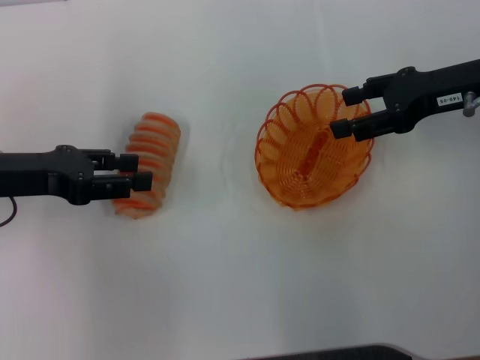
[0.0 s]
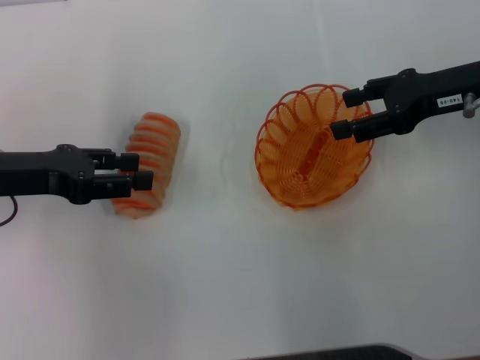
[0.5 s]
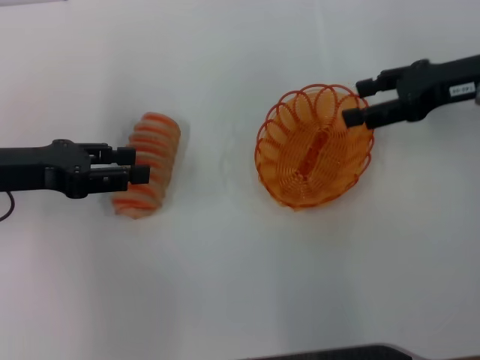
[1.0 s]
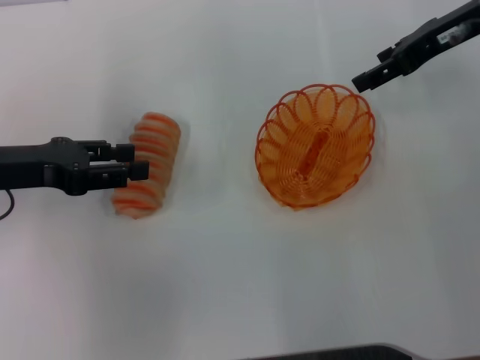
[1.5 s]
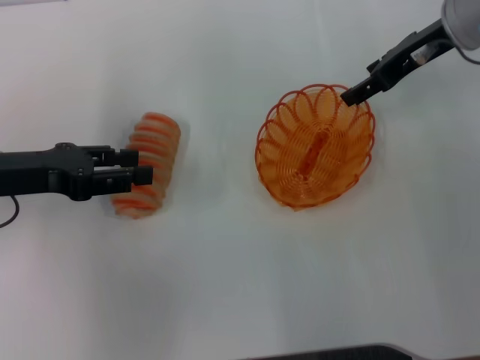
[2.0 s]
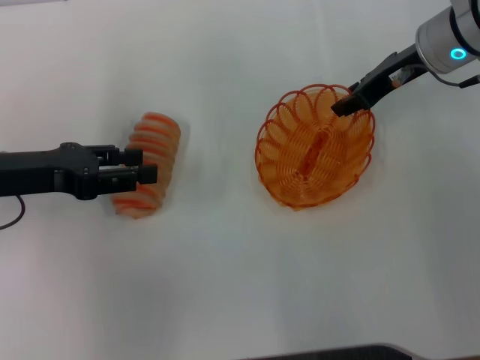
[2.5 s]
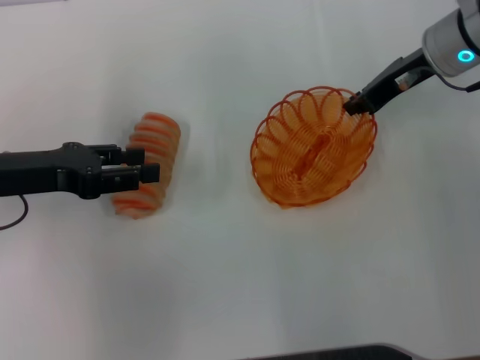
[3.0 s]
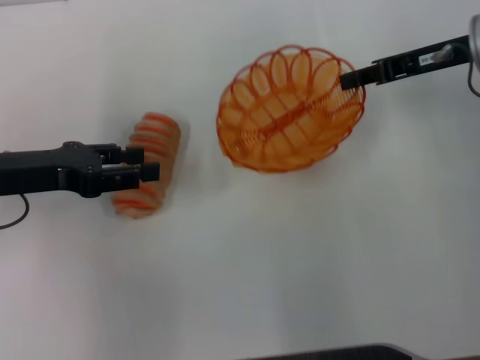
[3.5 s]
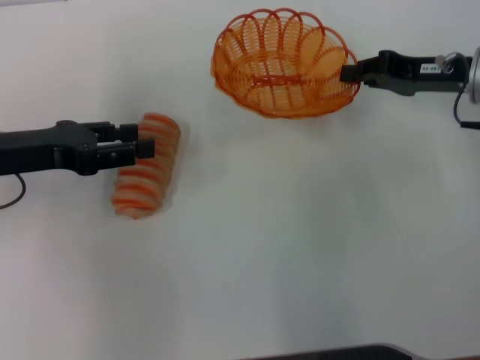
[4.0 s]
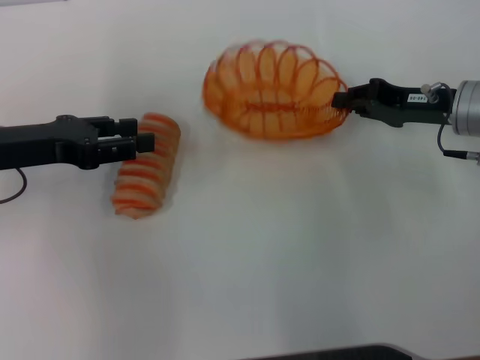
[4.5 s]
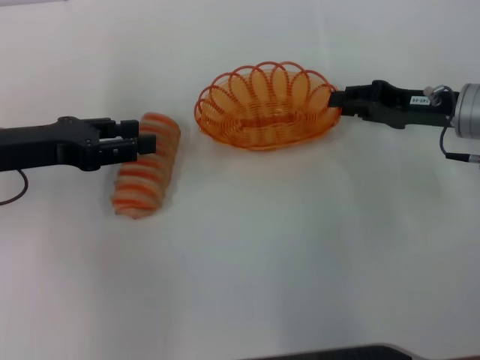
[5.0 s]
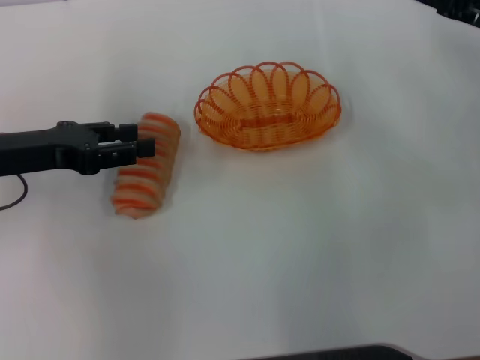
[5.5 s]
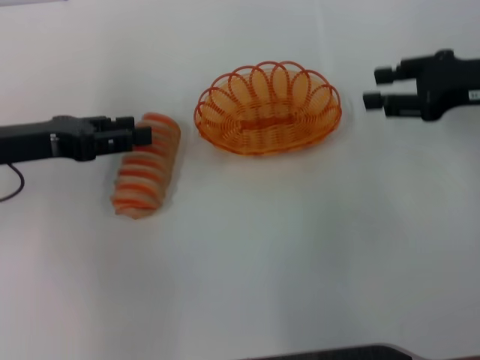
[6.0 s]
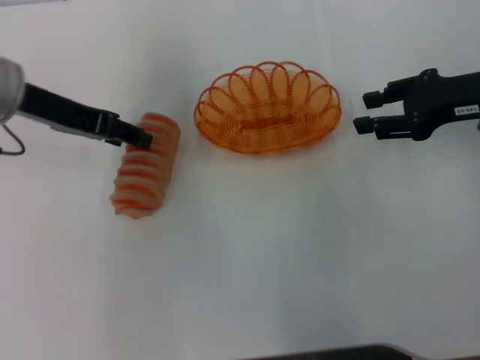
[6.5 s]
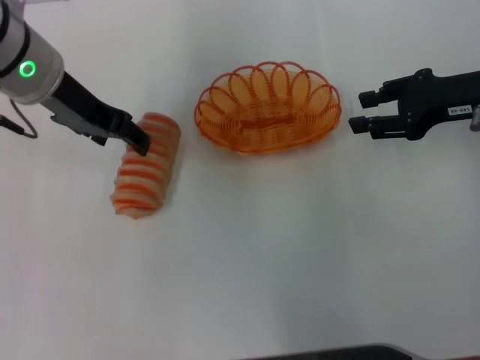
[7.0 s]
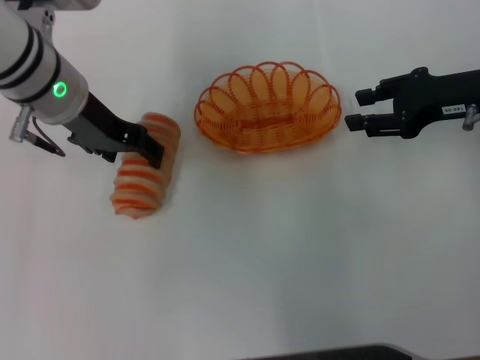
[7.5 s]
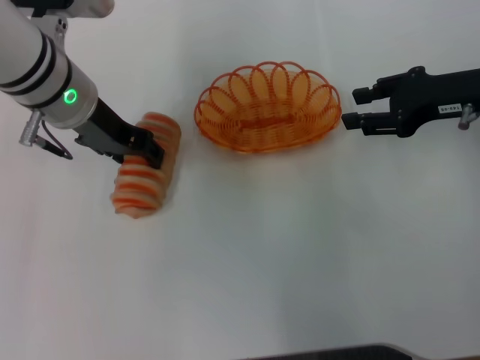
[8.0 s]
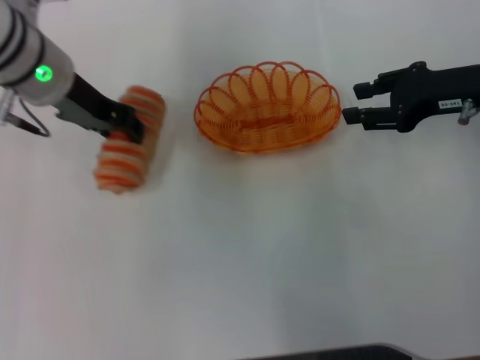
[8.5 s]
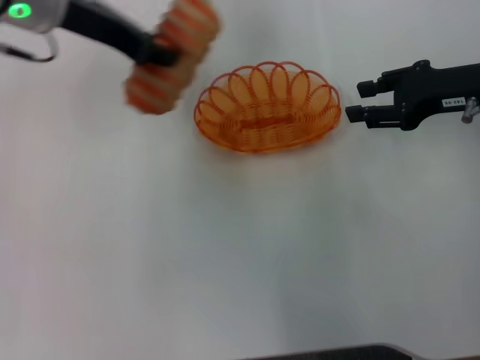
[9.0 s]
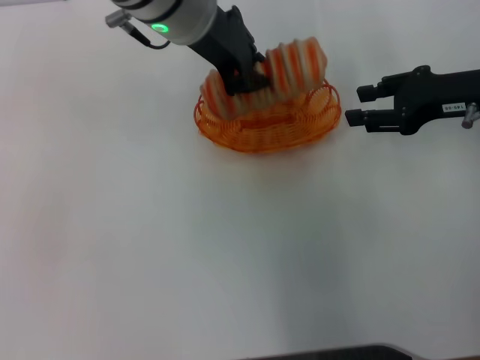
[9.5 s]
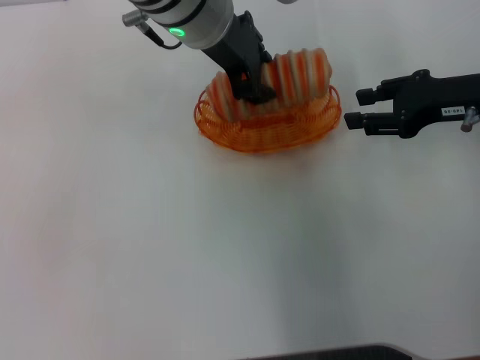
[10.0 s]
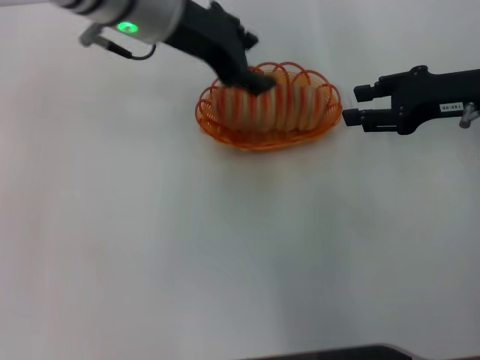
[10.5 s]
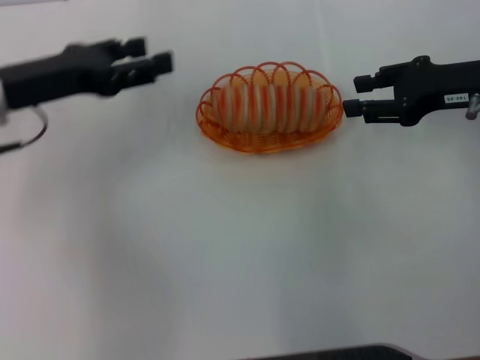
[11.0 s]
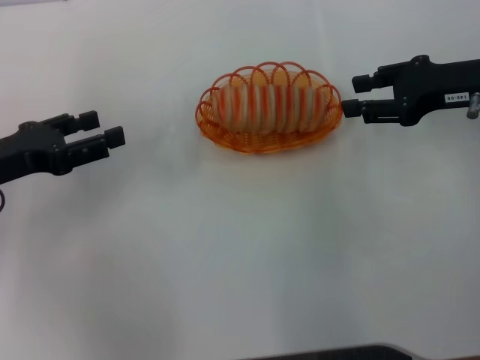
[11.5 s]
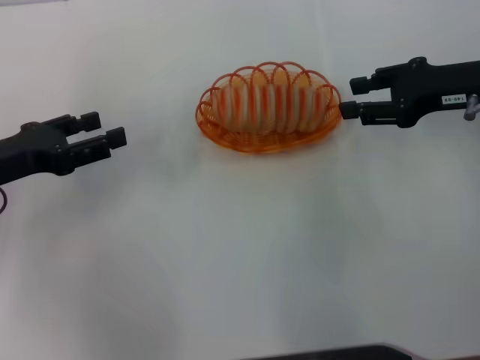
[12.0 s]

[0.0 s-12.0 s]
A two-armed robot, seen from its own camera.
Step, 0.0 to 3.0 s: Pick up the basket with the right gripper.
Step, 3.5 to 5.0 s: Place the basket in the center of view with the right gripper.
Step, 5.5 to 8.0 s: Pick up the long bread with the left gripper.
Step, 9.0 to 10.5 s: Place the long bread into the basket with the left gripper.
0.0 to 2.0 s: The right gripper travels forward by some 5 cm.
2.0 to 4.0 s: The right gripper goes some 10 cm downward and backward, and closes up.
4.0 to 6.0 s: The right gripper shifts by approximately 5 cm, and opens its fingers.
6.0 to 8.0 s: The left gripper is displaced to the right and forward by about 15 cm.
8.0 to 10.0 s: The left gripper is displaced to the right and upward by about 15 cm, and closes.
10.0 to 12.0 s: The left gripper moves to the left, backward and downward, roughly 30 cm, and opens.

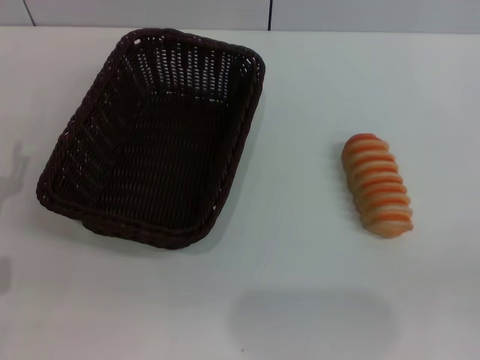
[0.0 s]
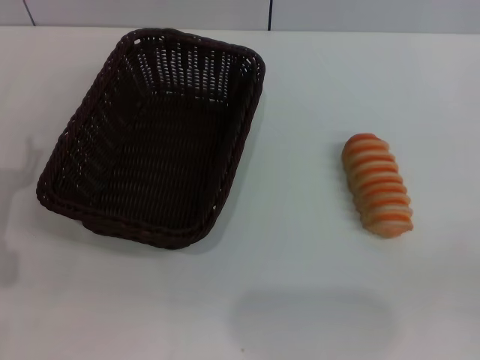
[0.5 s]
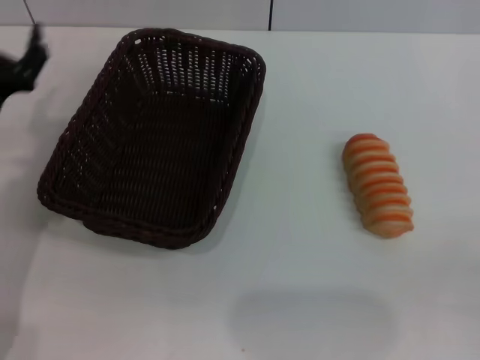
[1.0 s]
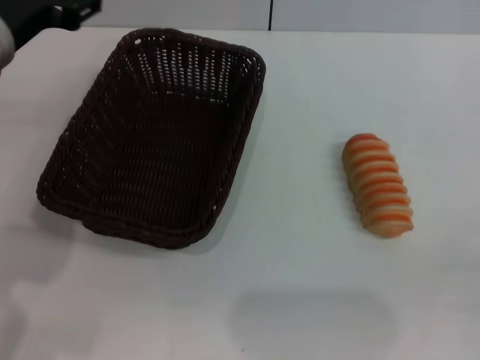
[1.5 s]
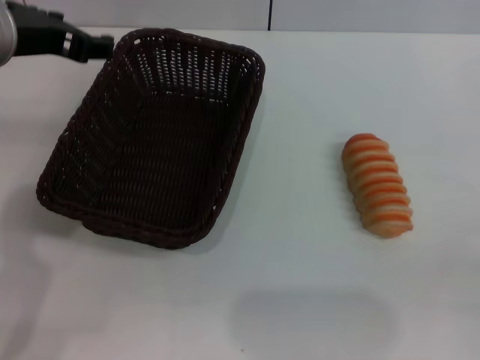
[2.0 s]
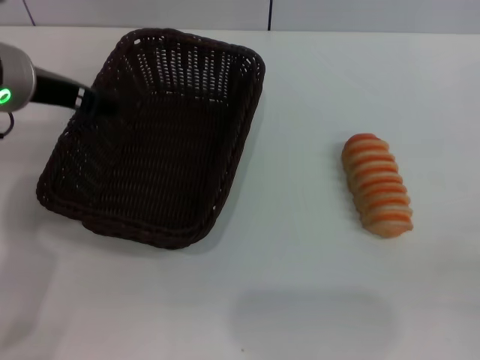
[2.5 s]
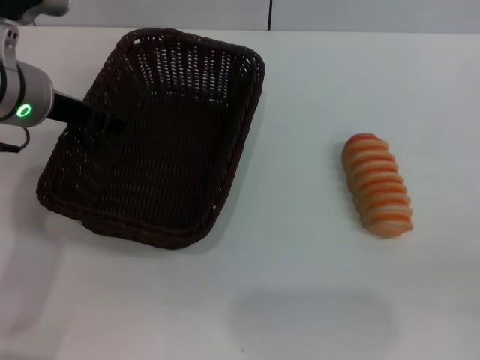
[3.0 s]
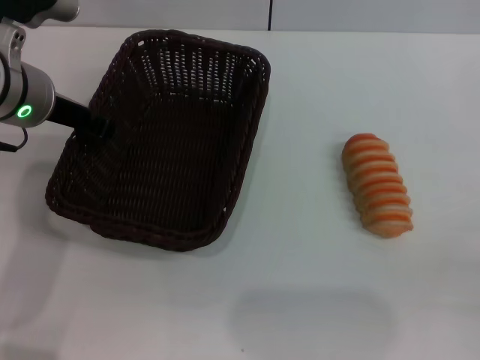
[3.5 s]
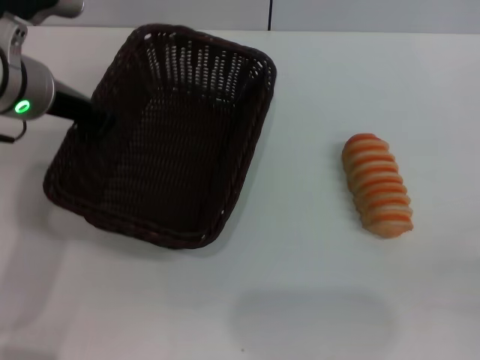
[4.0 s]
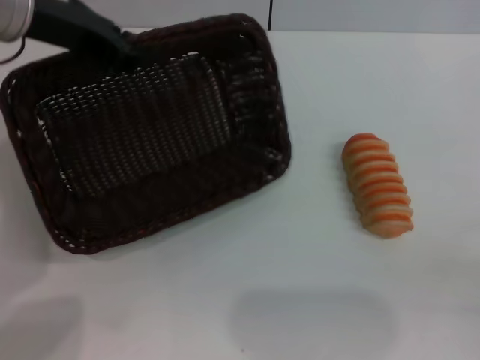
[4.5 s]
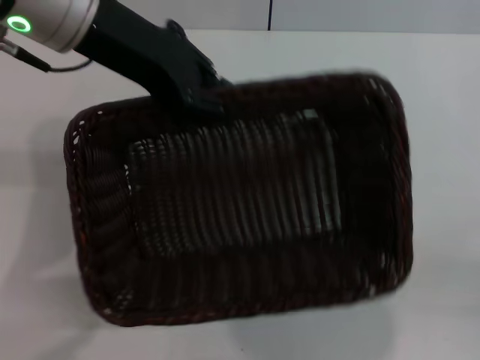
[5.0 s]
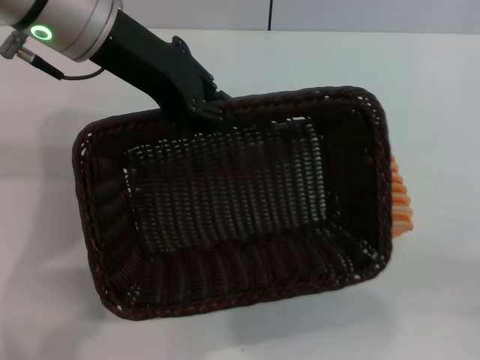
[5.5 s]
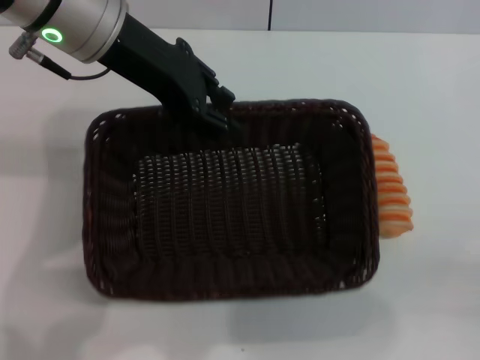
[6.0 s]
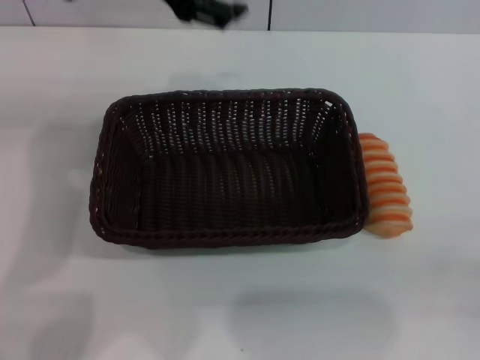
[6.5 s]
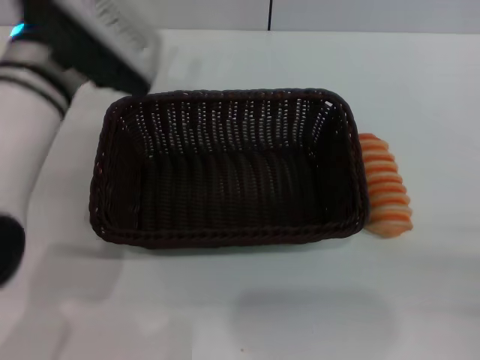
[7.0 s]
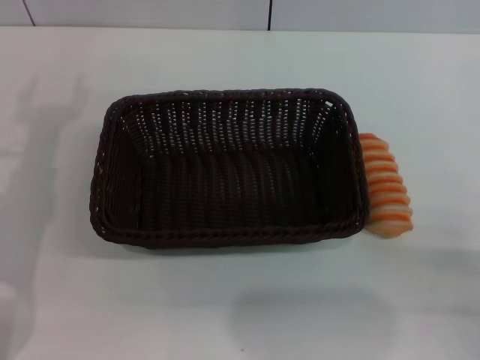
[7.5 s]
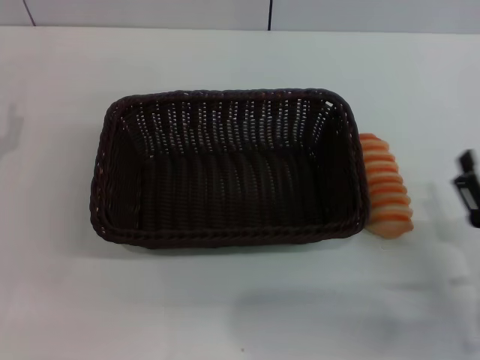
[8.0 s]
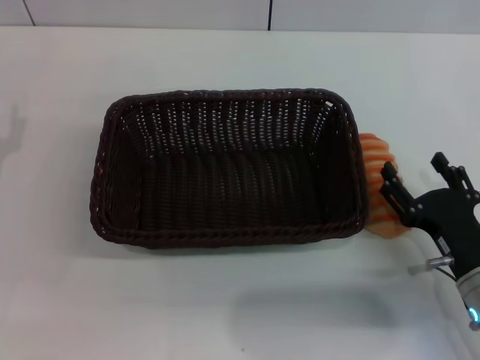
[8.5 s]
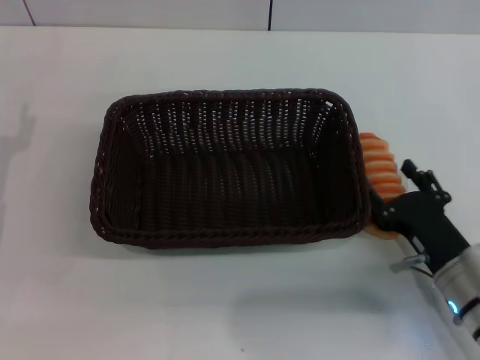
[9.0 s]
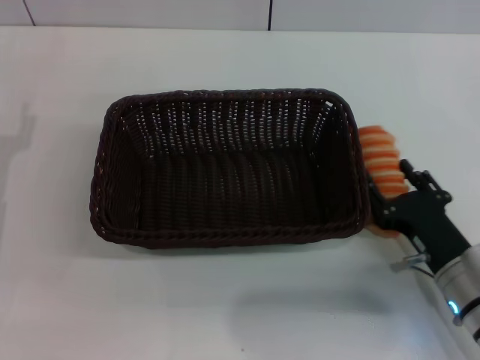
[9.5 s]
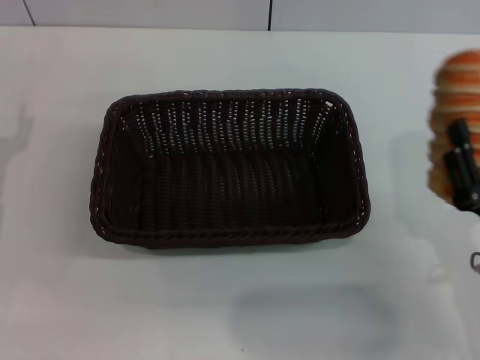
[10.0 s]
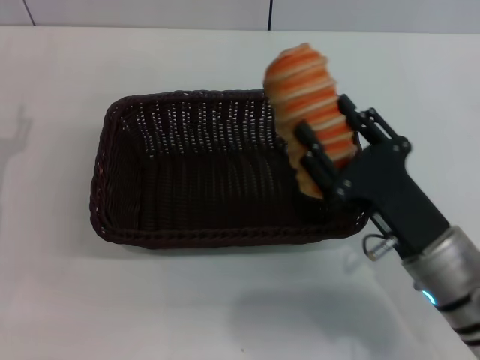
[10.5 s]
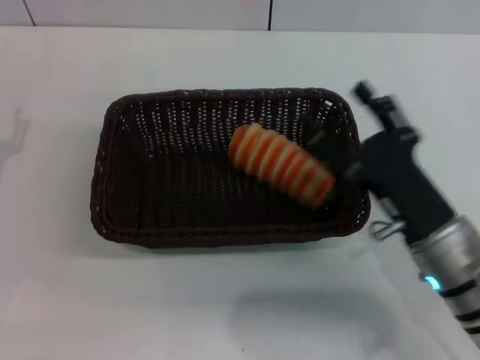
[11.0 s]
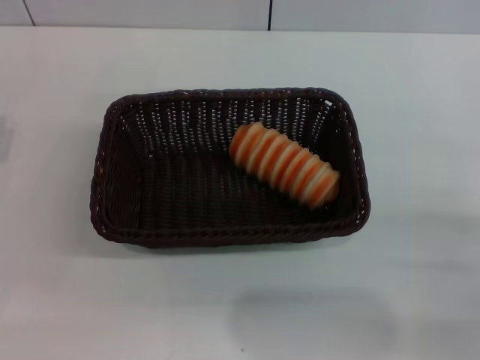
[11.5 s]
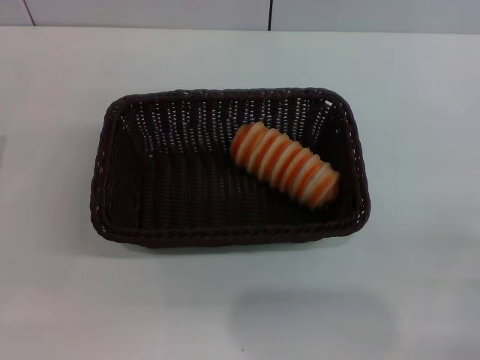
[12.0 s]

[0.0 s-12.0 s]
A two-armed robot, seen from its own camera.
Step, 0.0 to 4.5 s: Pick up the dark basket with the left gripper.
Step, 5.0 to 6.5 s: Place the dark basket in the center of view with the left gripper.
Step, 7.0 to 10.0 s: Pick up the long bread with the right gripper.
Step, 10.5 to 11.5 s: Place the long bread into the dark basket with the right gripper.
0.0 to 2.0 s: The left gripper travels upward, forward and to the right by roughly 25 cm.
2.0 to 4.0 s: The left gripper moves downward, approximately 5 cm, and closes up.
4.0 to 6.0 s: The left gripper heads upward and to the right, covering roughly 10 cm.
6.0 to 8.0 s: The left gripper heads downward, to the left and backward, covering approximately 25 cm, and opens its fingers, while the right gripper is displaced to the left by approximately 5 cm.
8.0 to 10.0 s: The right gripper closes up.
10.0 to 12.0 s: The right gripper goes about 10 cm to the right, and opens its fingers.
